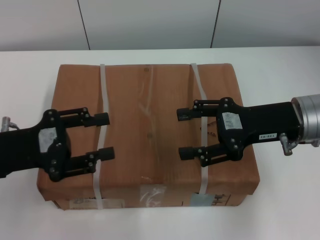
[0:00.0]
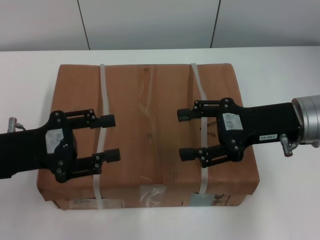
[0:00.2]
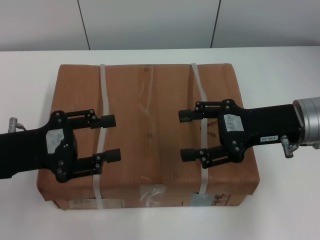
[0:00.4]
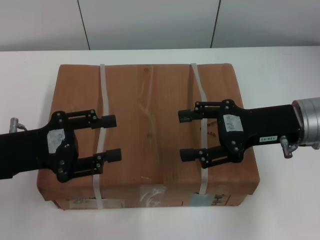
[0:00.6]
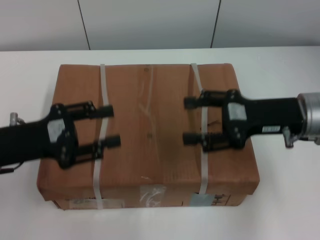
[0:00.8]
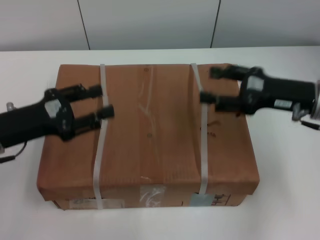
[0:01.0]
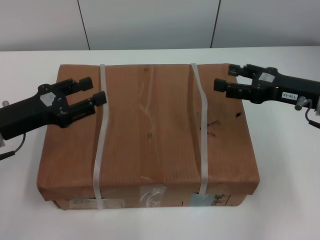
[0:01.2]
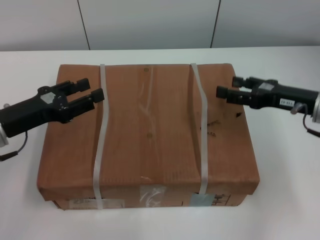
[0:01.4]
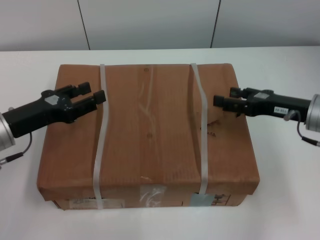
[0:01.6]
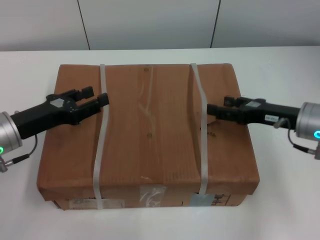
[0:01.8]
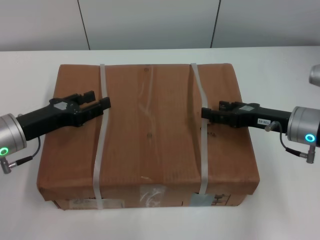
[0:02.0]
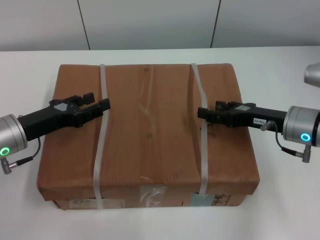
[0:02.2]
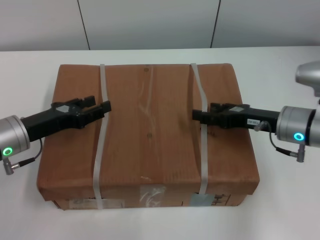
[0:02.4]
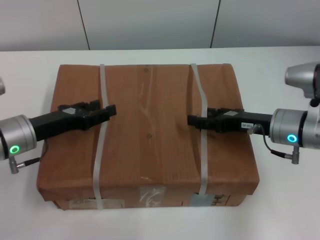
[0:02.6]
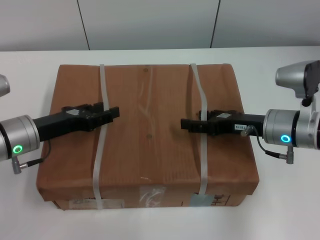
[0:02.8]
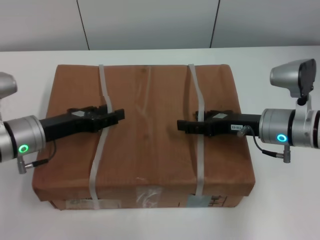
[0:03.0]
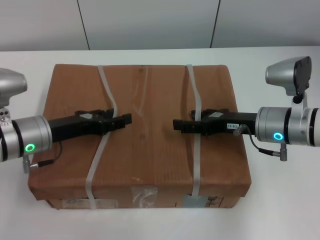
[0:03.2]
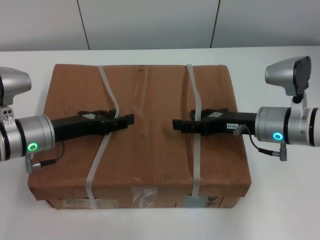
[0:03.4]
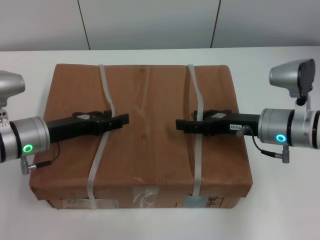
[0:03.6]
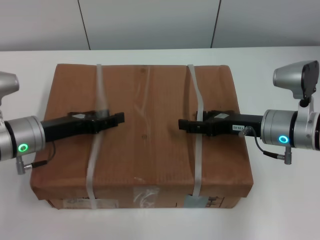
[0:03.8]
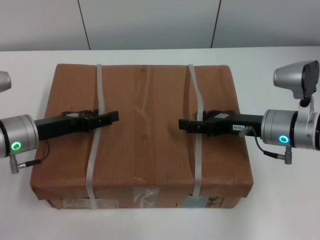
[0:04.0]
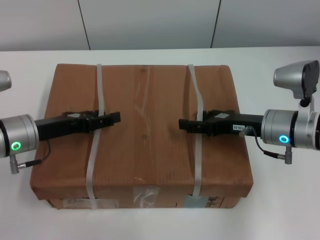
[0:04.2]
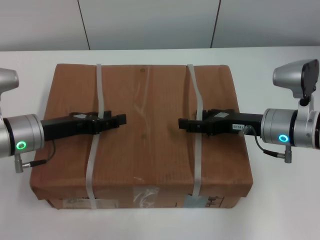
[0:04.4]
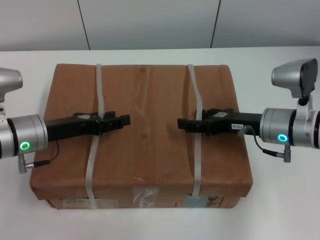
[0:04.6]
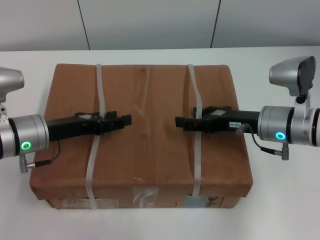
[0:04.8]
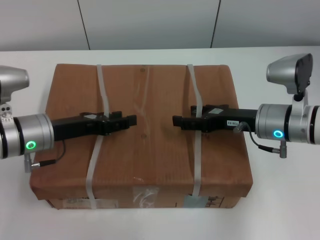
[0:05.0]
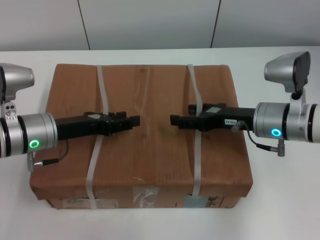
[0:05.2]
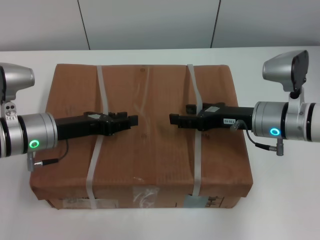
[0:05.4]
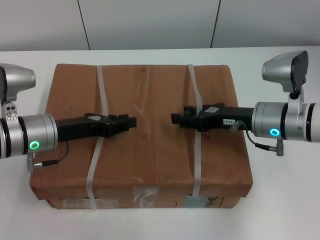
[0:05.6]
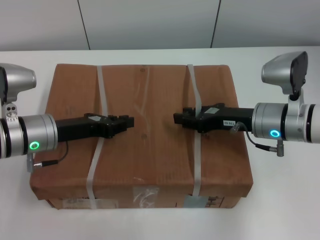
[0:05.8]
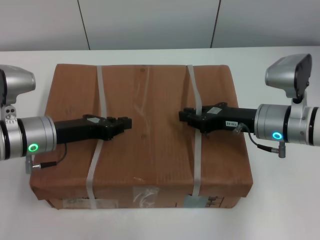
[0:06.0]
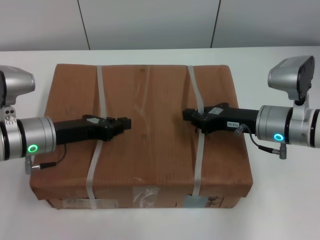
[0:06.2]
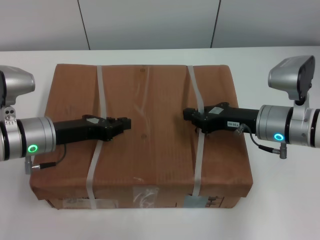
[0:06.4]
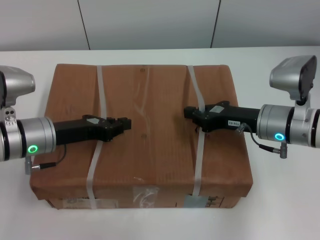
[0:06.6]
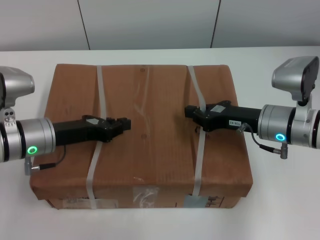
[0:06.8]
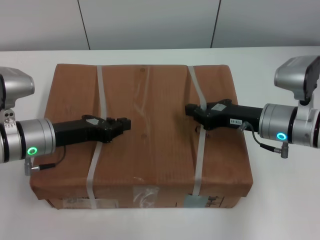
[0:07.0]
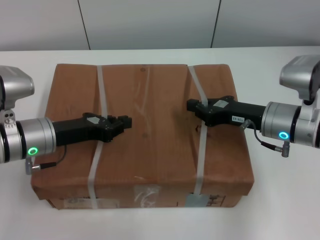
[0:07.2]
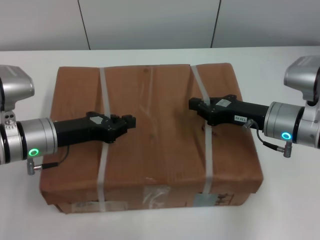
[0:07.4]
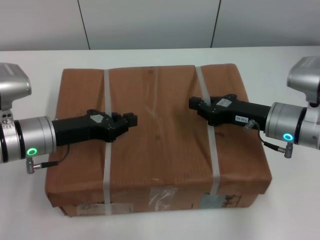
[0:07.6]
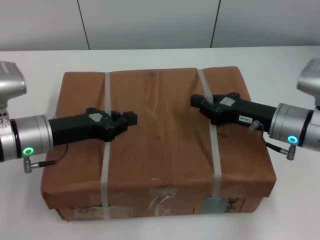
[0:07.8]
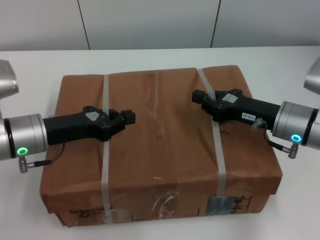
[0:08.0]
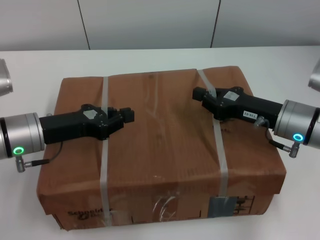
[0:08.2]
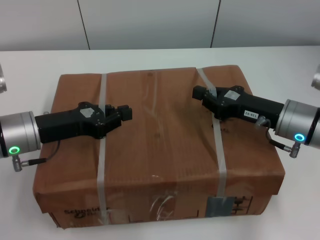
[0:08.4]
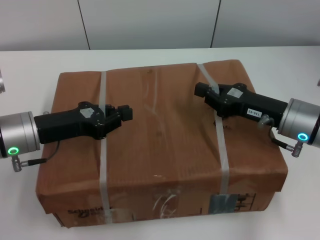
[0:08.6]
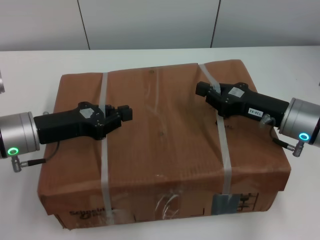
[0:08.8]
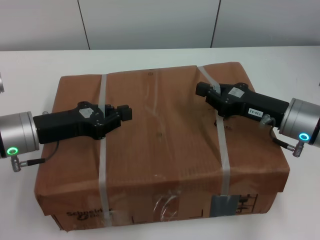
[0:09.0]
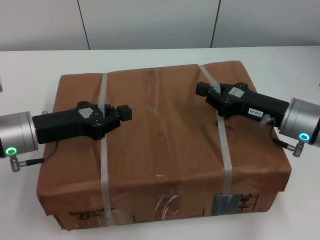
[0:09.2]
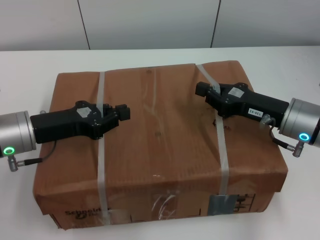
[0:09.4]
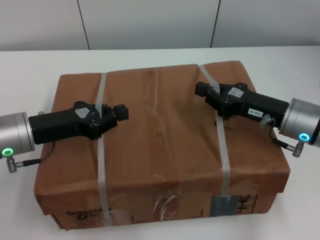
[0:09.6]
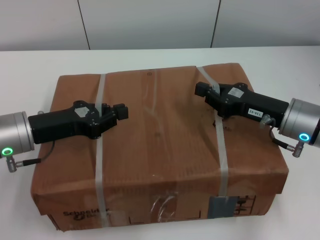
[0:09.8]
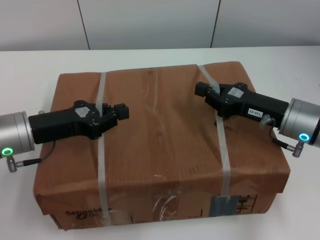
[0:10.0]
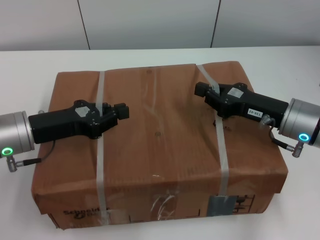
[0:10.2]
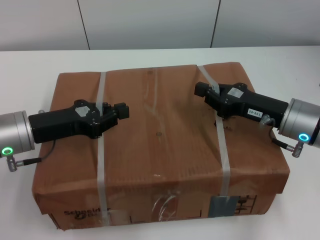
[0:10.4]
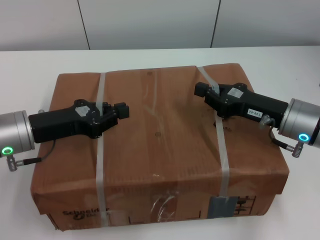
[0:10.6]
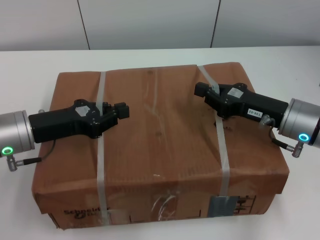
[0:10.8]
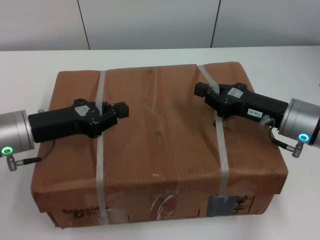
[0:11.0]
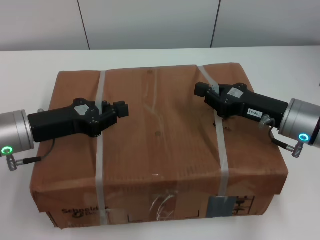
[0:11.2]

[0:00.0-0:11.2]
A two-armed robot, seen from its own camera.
Task of the whole recording: pick up the box from the table with both arms.
Step, 0:00.0 to 0:06.2: Grasp the bandage with left gripper.
Step, 0:00.0 to 0:06.2: Grasp the bandage with right gripper.
Step, 0:06.4 to 0:08.6: Lift the box with left gripper.
Step, 0:06.4 to 0:08.6: Lift the box with right gripper.
0:00.0 to 0:01.6: The right gripper heads downward and to the right, covering about 10 cm. Meanwhile the left gripper shifts by some 5 cm.
0:01.6 to 0:03.2: The right gripper travels to the left by some 5 cm; the left gripper ends up roughly 5 cm from where it was.
0:03.2 to 0:04.8: The grippers make only small movements.
0:04.8 to 0:06.4: The left gripper closes up; the right gripper closes its fingers.
0:08.0 to 0:09.6: The grippers move only a little.
0:09.6 to 0:11.2: Both grippers stay about where they are.
